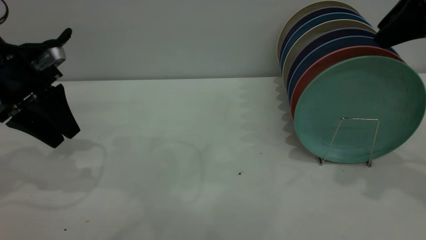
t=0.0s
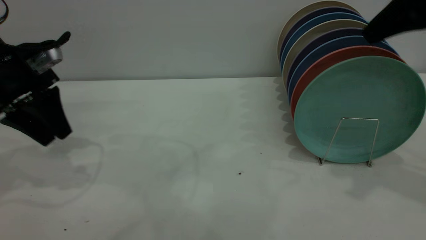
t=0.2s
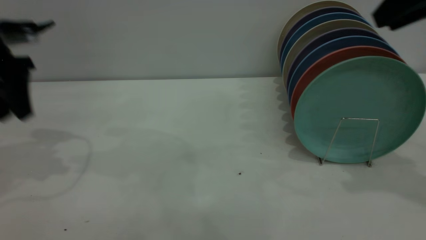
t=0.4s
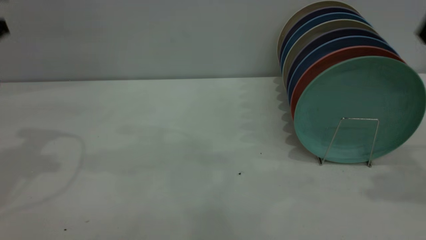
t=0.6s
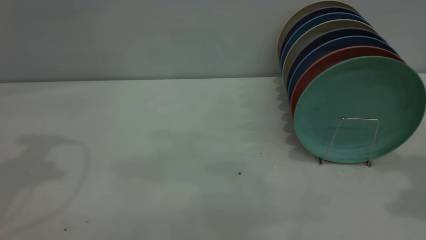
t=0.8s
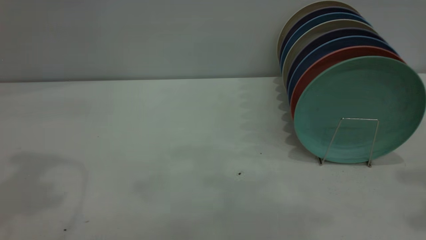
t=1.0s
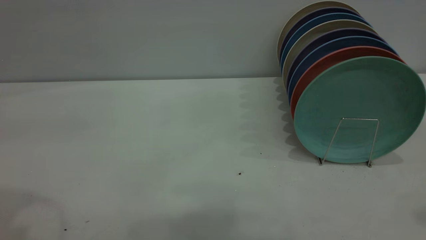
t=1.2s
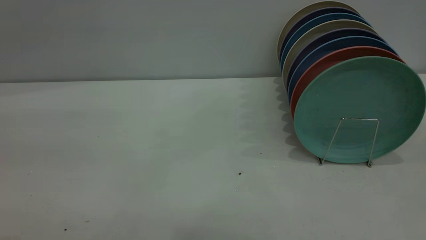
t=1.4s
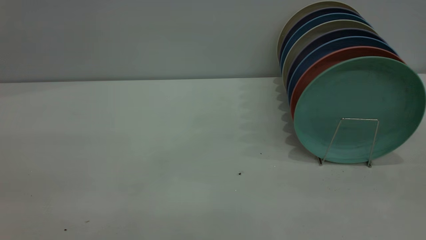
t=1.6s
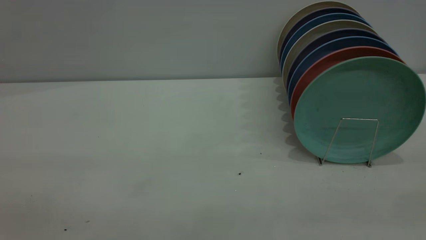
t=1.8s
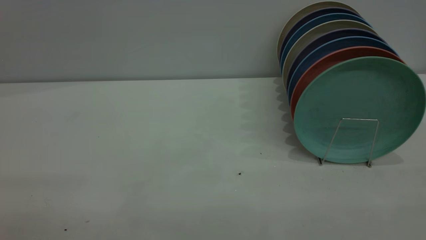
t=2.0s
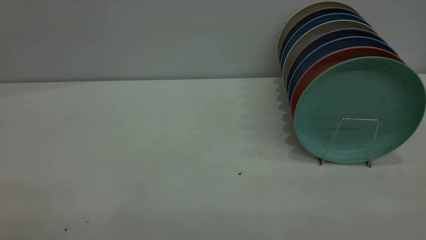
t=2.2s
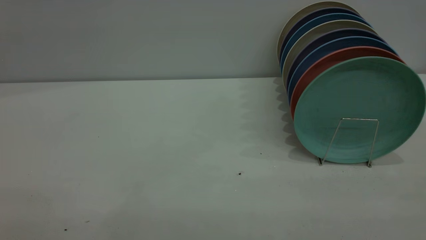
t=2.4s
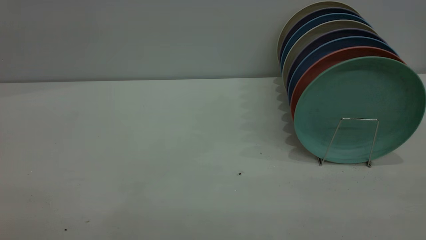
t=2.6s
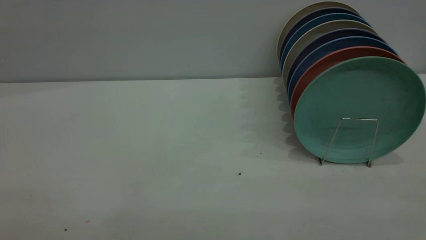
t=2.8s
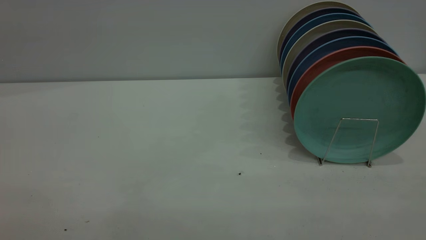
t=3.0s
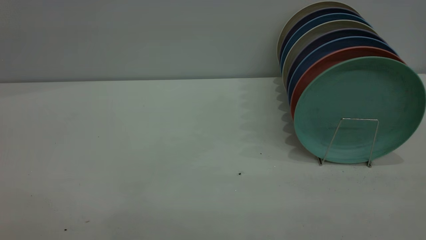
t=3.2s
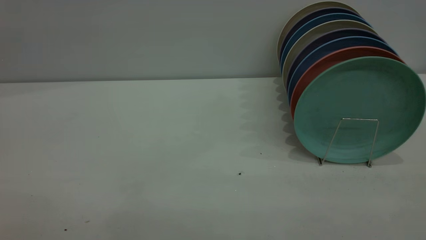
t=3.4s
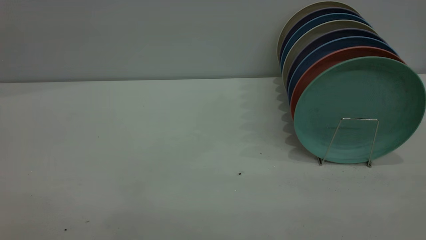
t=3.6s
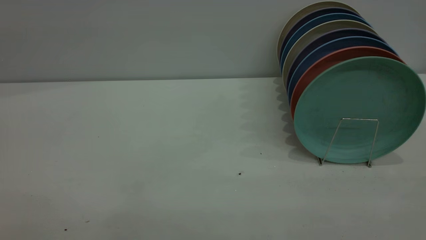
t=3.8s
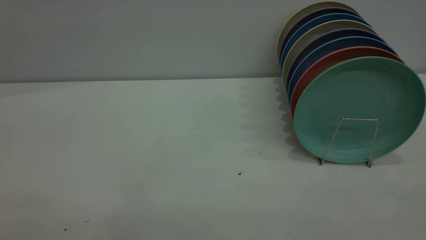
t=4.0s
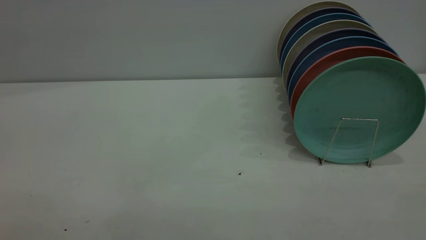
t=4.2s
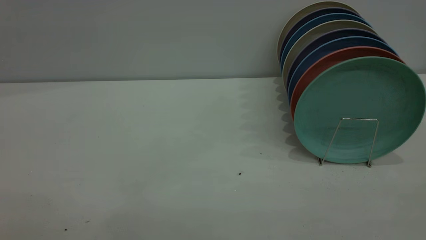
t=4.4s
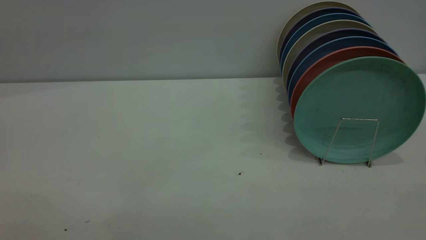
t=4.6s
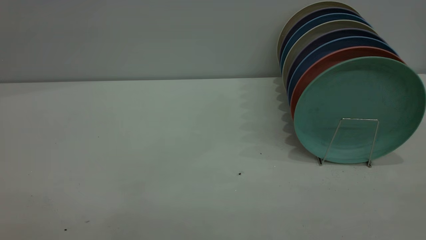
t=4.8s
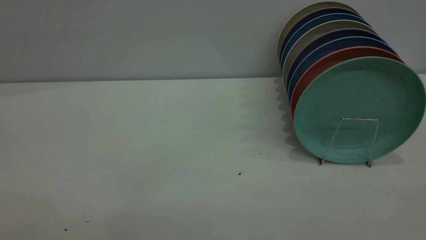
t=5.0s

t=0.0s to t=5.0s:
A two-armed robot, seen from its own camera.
Task of the whole recording: the left gripper grasp the green plate, the left gripper pass the green plate to the right gripper, and the right gripper place the green plate on the plate rack.
t=0.0s to t=1.6s: The right gripper travels backward by approximately 25 cm; the left gripper goes roughly 35 cm backward and upward.
